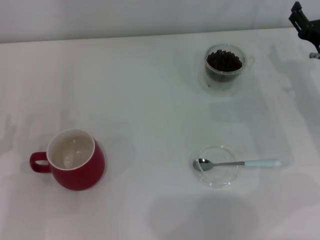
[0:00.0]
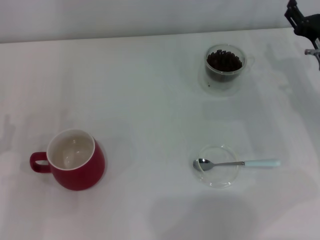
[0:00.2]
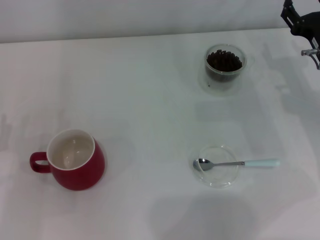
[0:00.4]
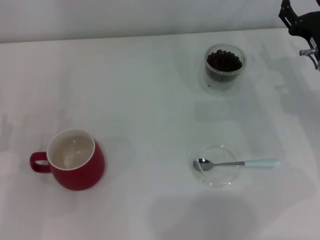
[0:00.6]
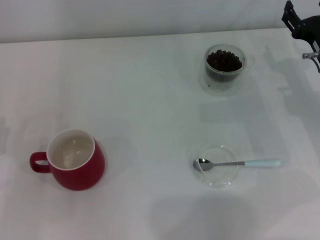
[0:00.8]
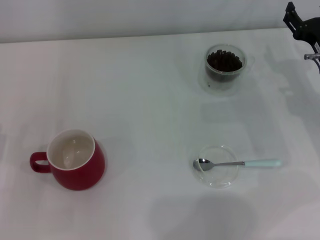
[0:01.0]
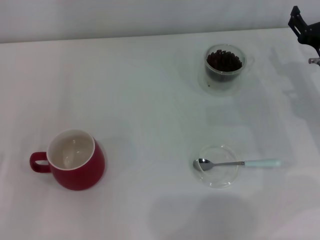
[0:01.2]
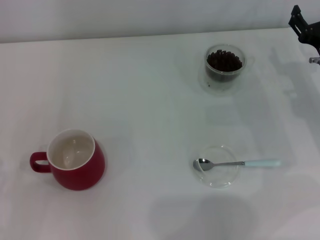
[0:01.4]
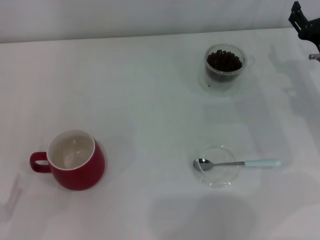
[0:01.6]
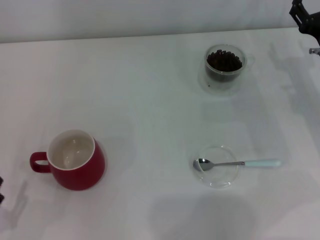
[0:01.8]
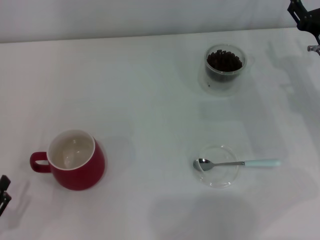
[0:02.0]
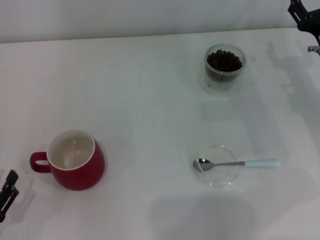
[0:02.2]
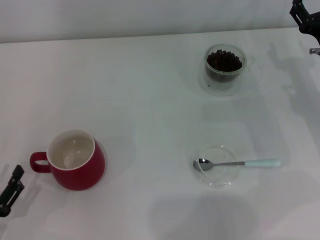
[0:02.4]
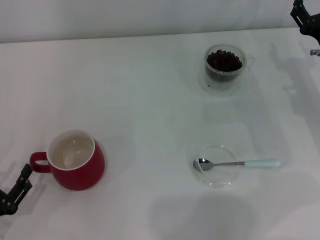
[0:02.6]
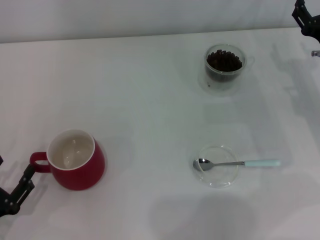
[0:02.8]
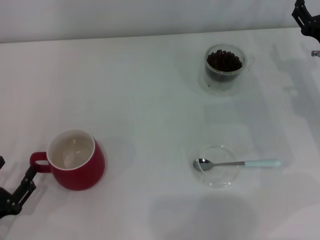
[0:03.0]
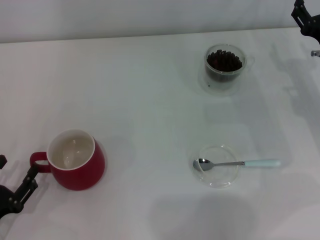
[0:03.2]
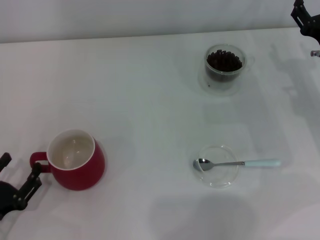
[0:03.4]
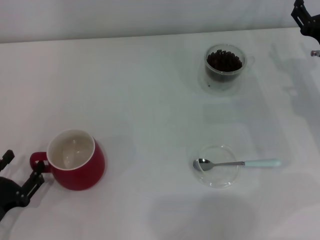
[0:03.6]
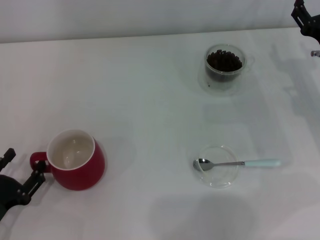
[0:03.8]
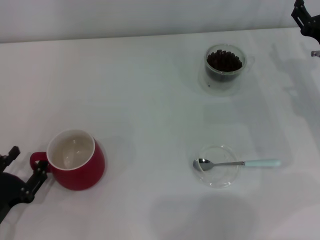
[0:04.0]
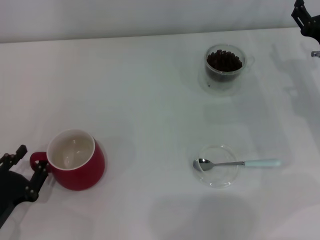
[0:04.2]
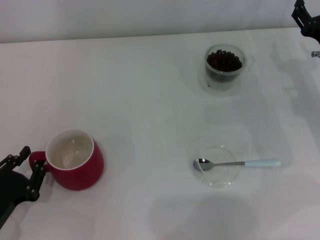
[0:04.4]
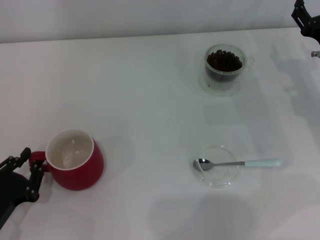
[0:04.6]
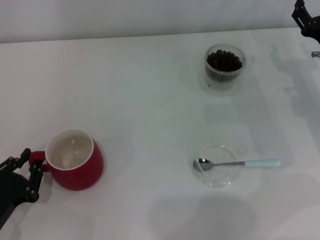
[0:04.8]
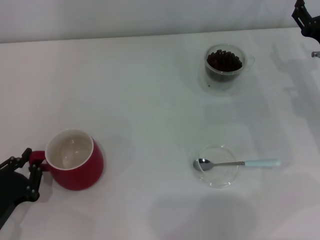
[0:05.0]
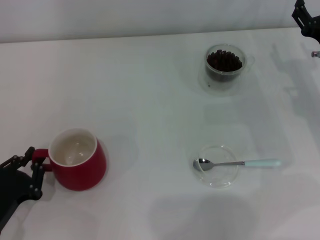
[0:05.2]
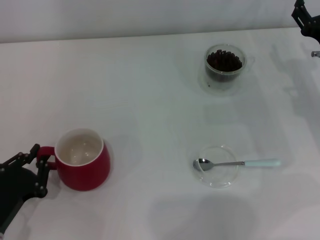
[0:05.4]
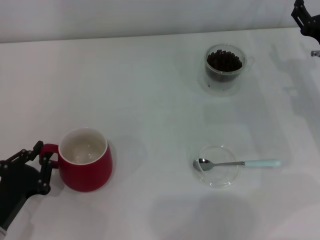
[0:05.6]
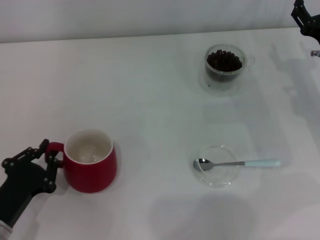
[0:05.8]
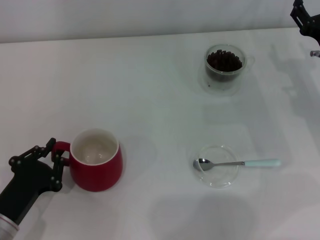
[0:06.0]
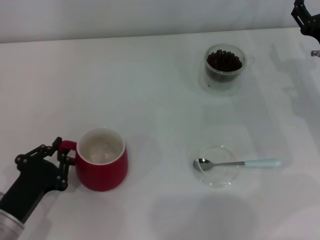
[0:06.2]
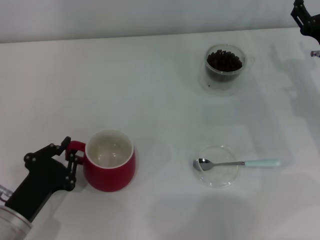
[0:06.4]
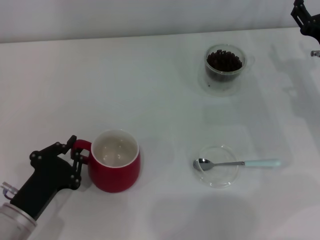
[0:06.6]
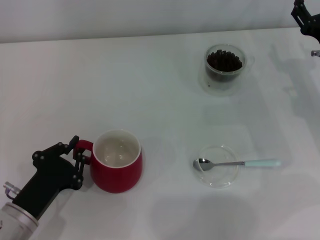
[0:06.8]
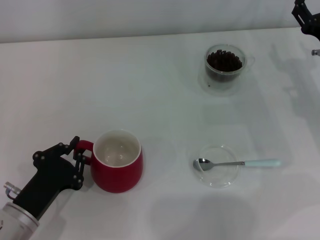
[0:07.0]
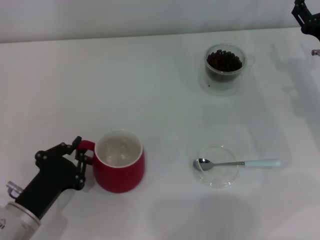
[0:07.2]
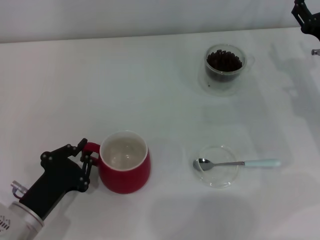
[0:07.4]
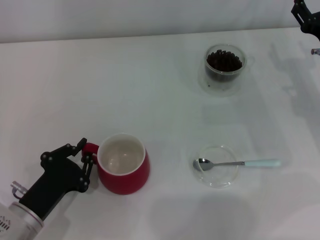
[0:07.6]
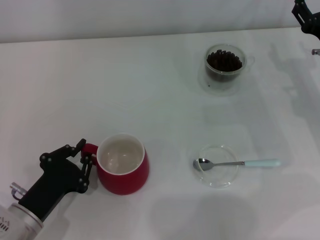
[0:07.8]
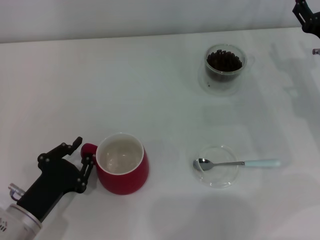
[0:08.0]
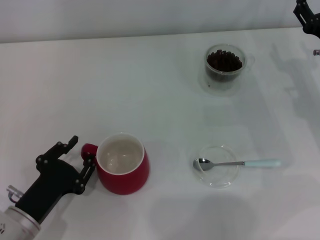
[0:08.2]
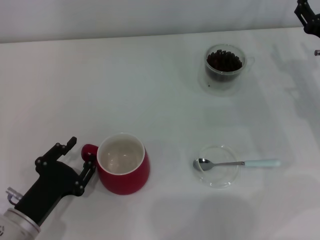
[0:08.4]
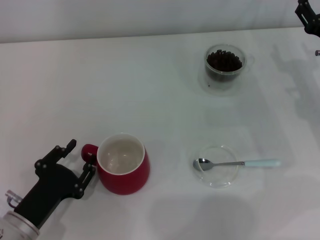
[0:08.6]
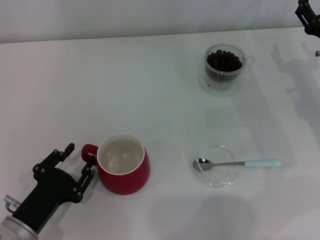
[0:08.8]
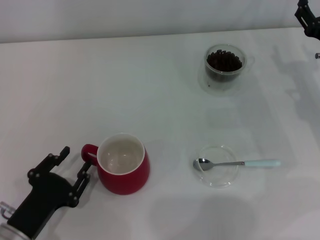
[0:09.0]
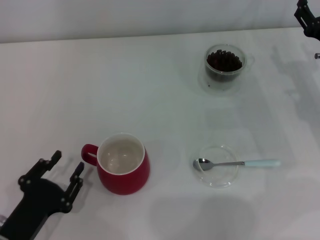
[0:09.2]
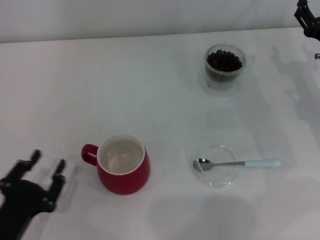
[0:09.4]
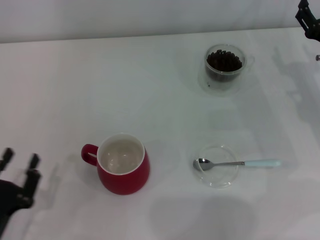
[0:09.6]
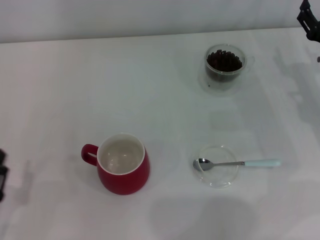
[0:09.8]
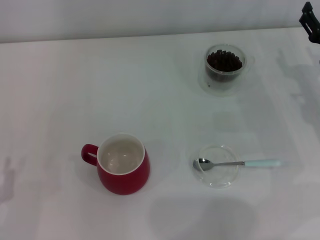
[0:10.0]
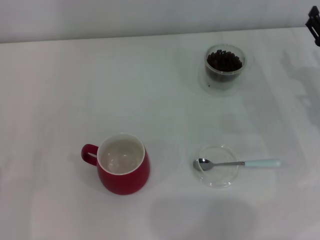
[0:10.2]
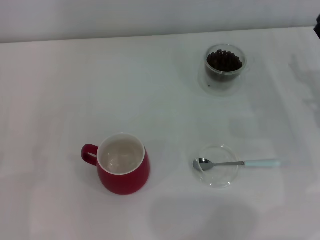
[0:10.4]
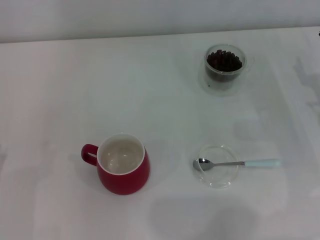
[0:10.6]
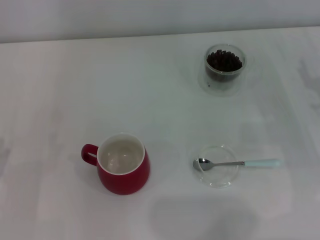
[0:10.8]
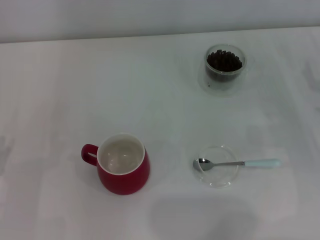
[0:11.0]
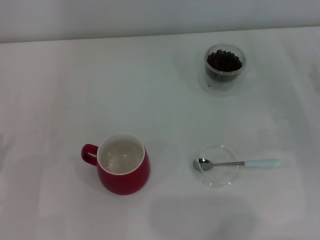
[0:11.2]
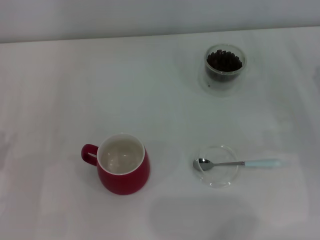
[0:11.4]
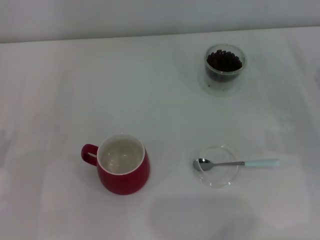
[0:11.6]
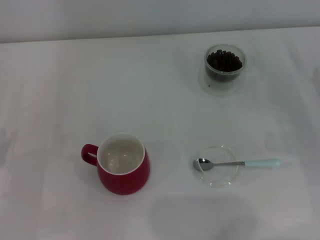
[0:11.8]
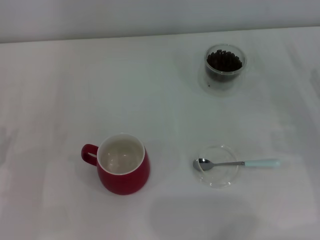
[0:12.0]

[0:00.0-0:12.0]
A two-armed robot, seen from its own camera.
Task of the whole recording: Use a blue spoon to take out the coffee beans from the glass and pour them into the red cup.
Step, 0:00.0 to 0:09.0: Move the cup to the center of view with the left gripper.
0:01.6 to 0:03.0: The grippers move only a little.
0:03.0 to 0:04.4: The left gripper closes.
0:04.4 to 0:06.0: The left gripper closes.
0:06.0 to 0:07.6: The grippers make only small movements.
0:07.6 to 0:09.0: The left gripper opens up.
0:09.0 to 0:10.4: The left gripper is displaced to the left by some 10 cm.
0:10.4 to 0:12.0: The right gripper shifts by about 5 cm.

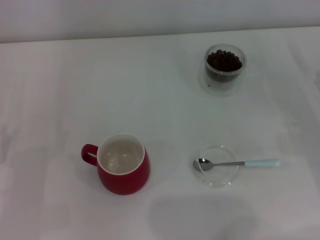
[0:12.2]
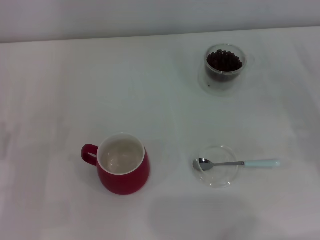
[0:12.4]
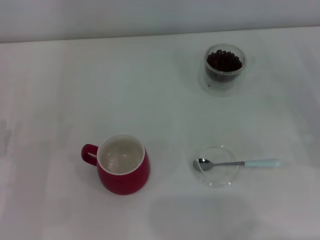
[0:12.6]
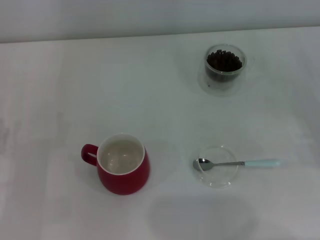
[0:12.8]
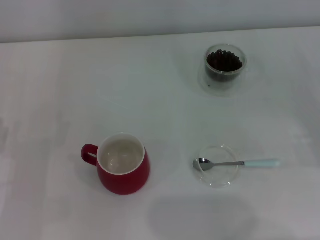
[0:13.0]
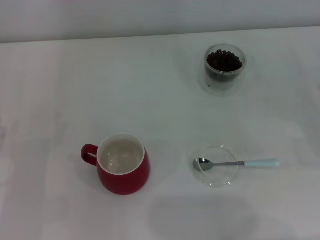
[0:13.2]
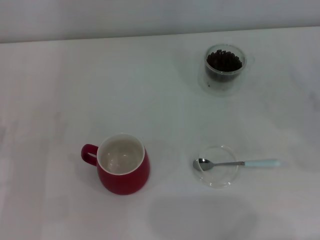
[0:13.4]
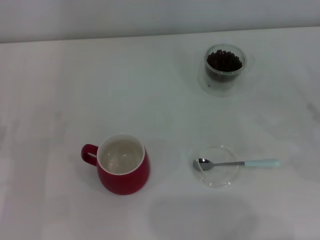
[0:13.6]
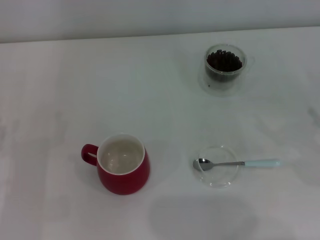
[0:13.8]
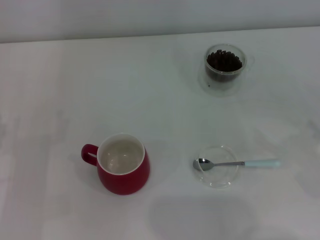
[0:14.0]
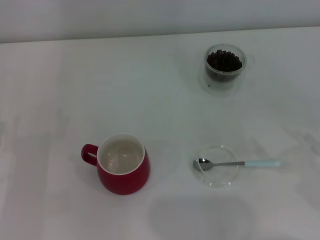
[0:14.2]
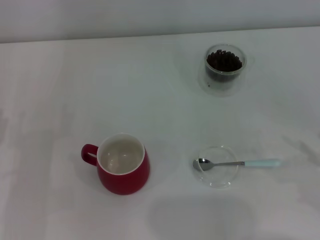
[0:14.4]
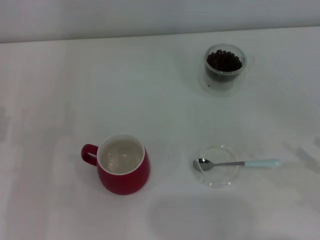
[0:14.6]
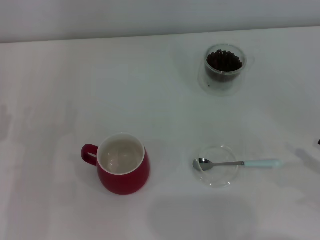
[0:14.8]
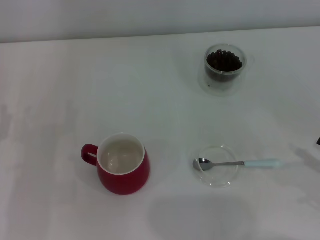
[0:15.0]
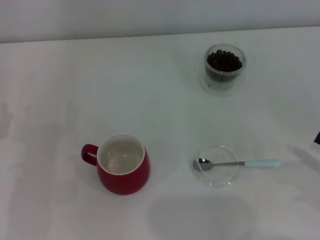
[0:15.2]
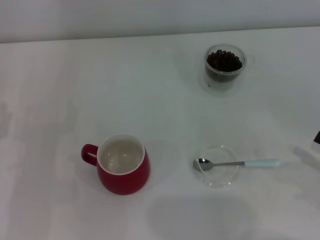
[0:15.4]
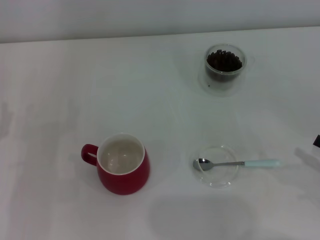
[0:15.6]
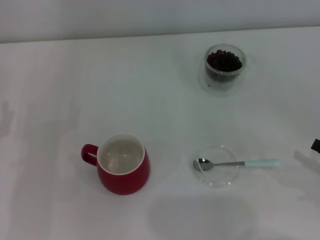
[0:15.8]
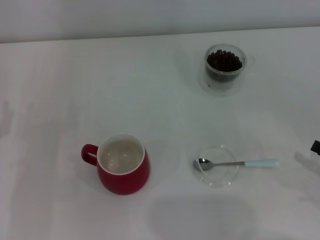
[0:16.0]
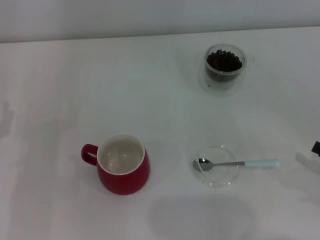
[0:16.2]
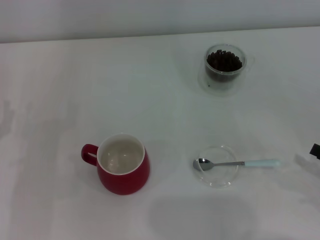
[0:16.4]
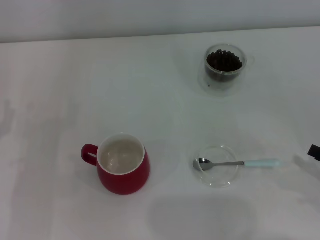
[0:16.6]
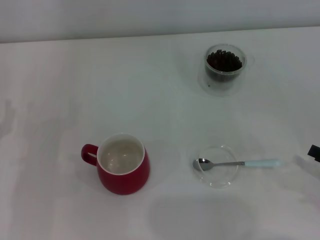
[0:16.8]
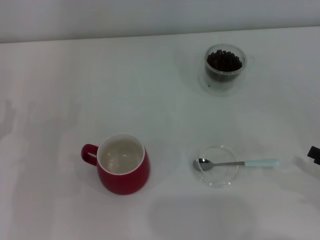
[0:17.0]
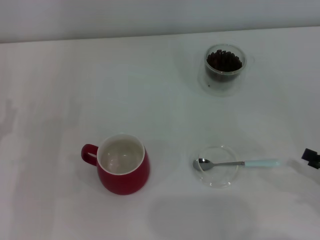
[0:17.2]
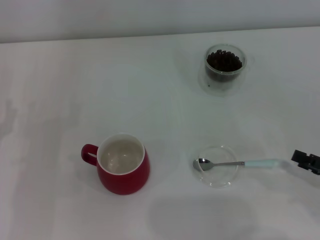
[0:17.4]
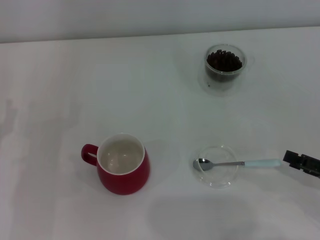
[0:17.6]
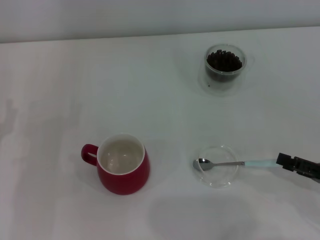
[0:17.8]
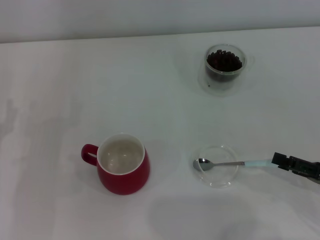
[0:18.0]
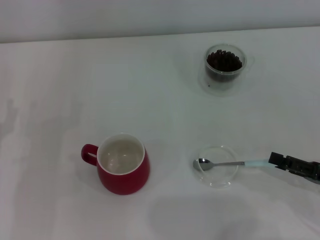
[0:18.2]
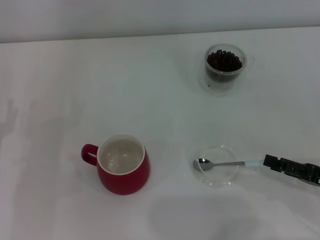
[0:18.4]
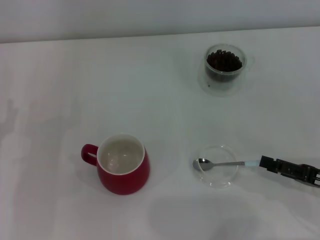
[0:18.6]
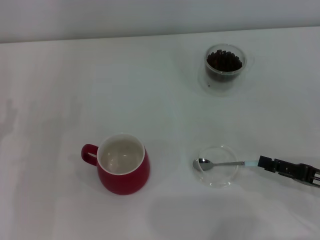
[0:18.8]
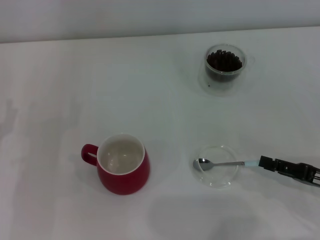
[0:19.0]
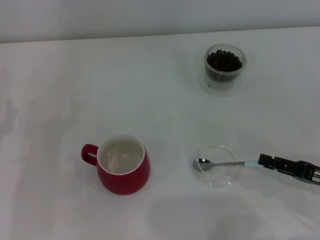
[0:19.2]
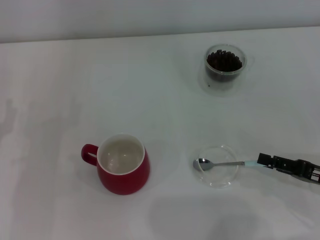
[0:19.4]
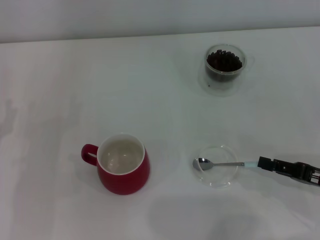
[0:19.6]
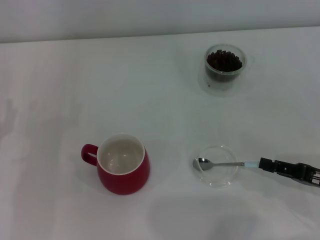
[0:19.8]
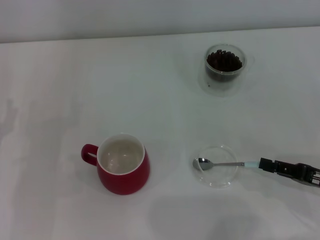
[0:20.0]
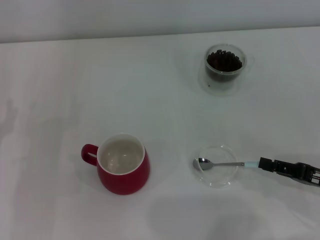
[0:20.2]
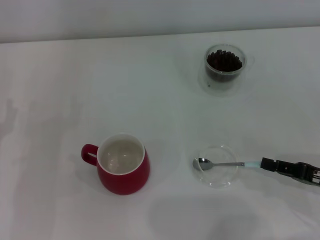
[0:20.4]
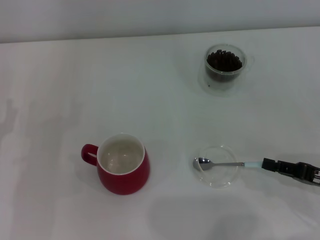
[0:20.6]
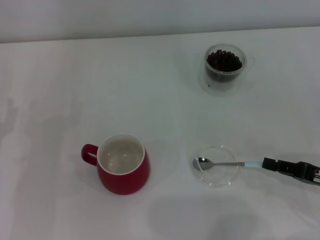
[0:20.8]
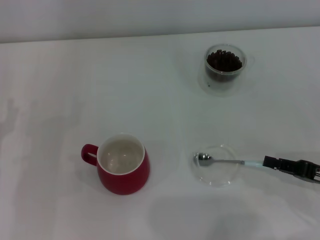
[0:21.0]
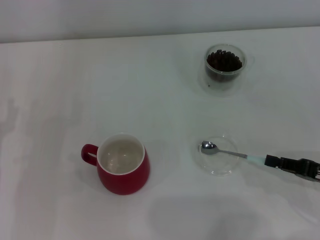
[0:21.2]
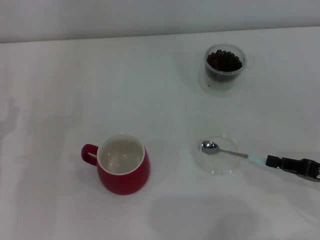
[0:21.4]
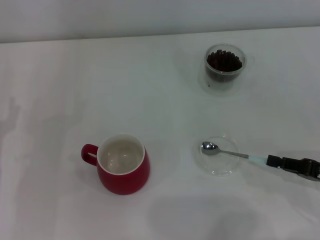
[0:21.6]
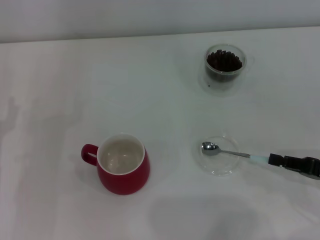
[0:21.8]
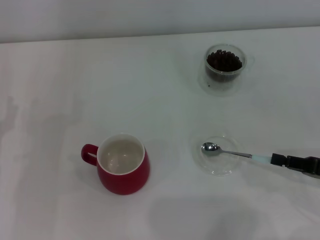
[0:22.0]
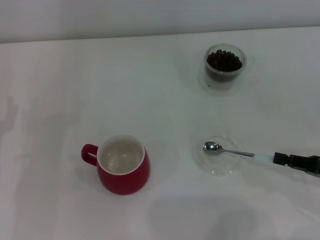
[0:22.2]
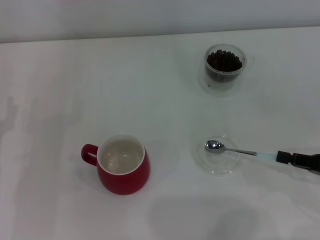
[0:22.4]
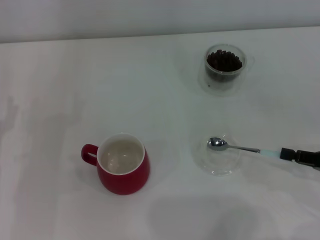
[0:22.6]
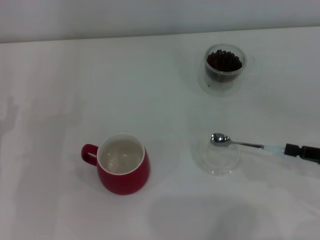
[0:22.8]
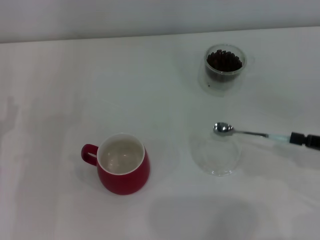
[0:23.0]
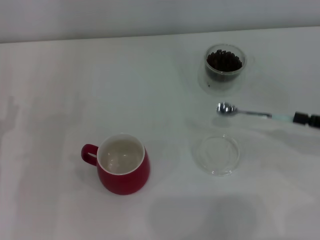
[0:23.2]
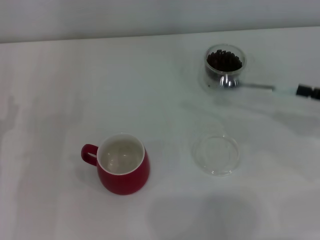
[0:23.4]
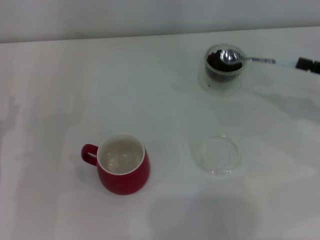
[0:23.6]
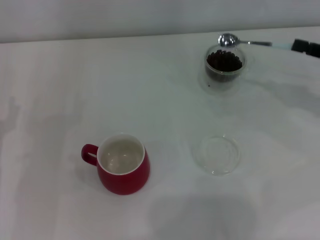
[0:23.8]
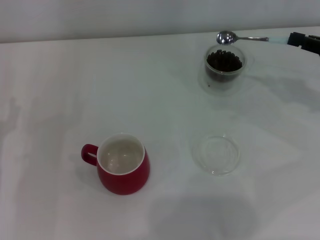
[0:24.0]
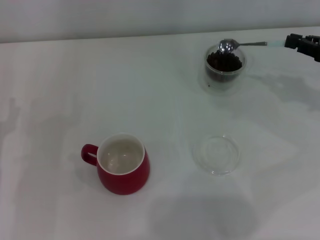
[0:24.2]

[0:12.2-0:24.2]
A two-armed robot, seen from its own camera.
Task of the whole recording: Use a blue spoon to take out the coffee beans from the glass and pour them into the red cup.
Step, 0:12.2 to 0:22.8: Pick up the spoon with the right gripper.
0:16.6 to 0:18.2: The grippers move only a little.
0:18.2 to 0:19.8: The right gripper closes.
0:19.8 to 0:21.2: The two grippers keep their place.
0:21.2 to 0:22.6: The grippers move only a little.
0:22.6 to 0:24.2: The right gripper goes about 15 cm forward and upward.
